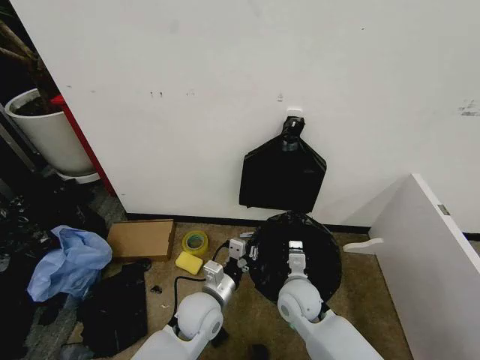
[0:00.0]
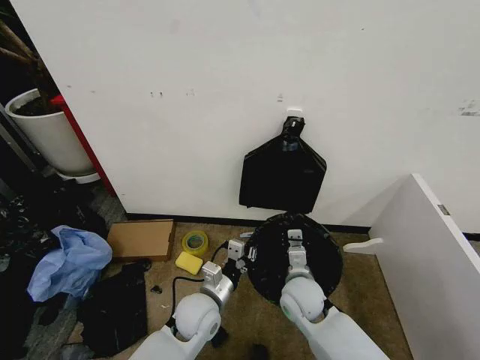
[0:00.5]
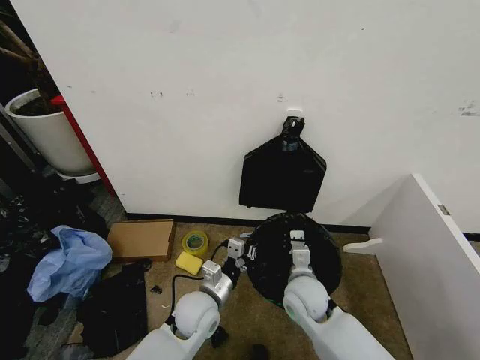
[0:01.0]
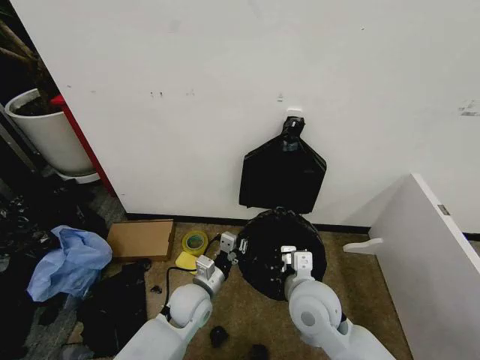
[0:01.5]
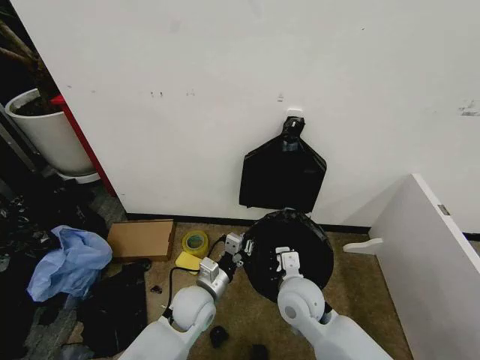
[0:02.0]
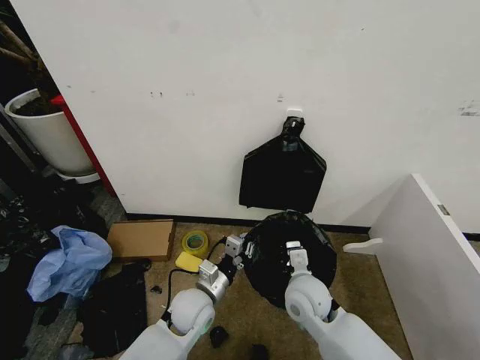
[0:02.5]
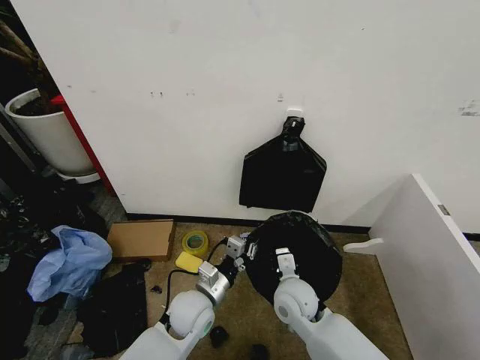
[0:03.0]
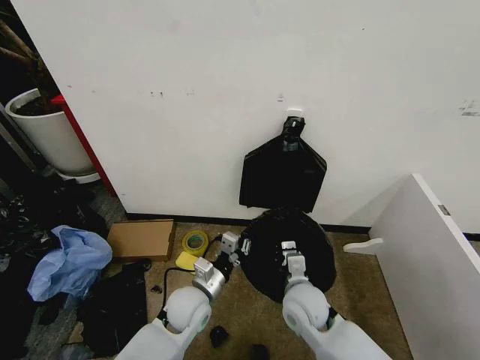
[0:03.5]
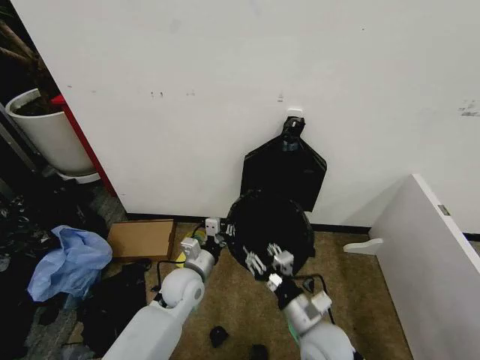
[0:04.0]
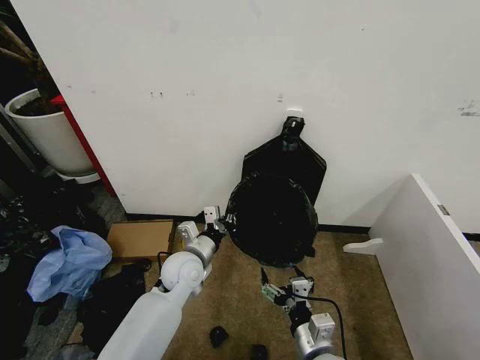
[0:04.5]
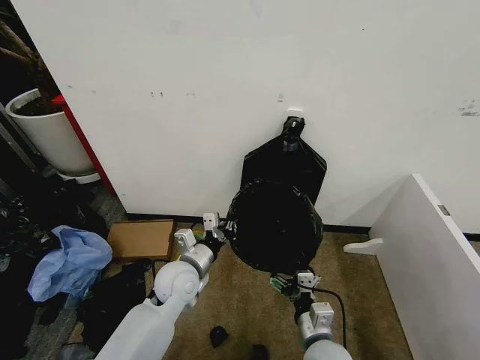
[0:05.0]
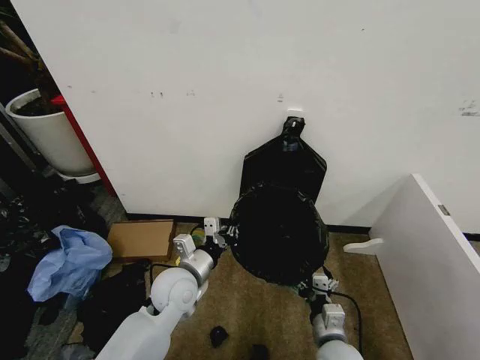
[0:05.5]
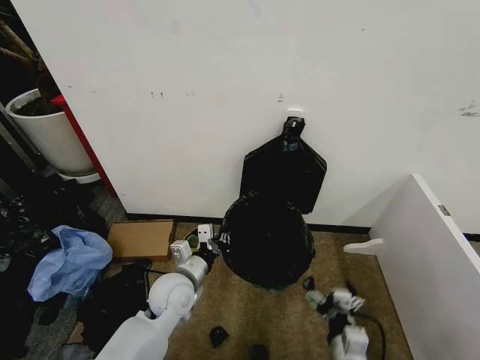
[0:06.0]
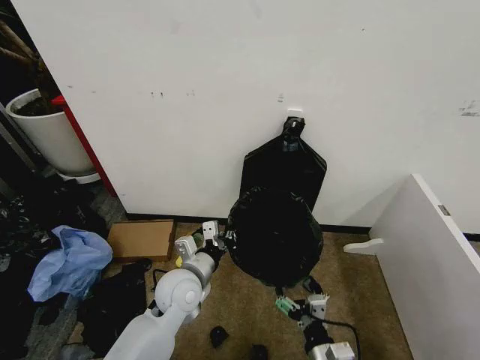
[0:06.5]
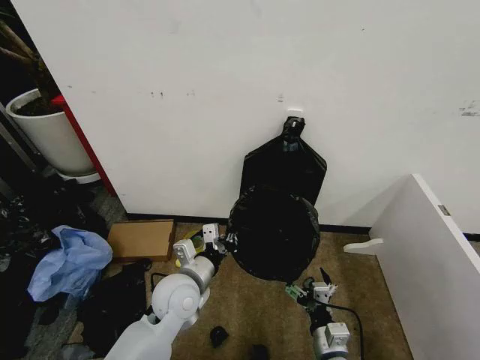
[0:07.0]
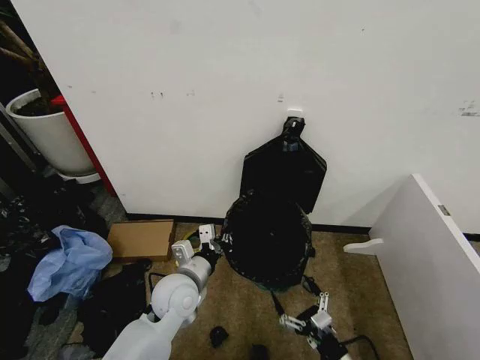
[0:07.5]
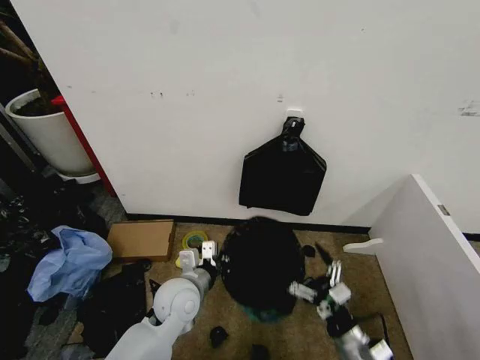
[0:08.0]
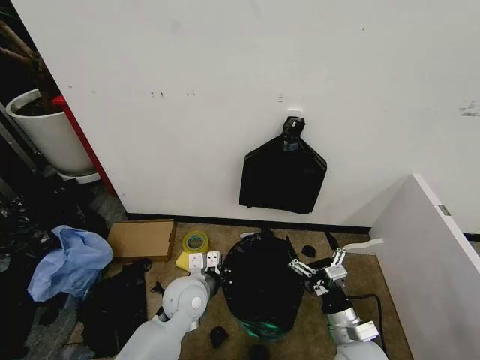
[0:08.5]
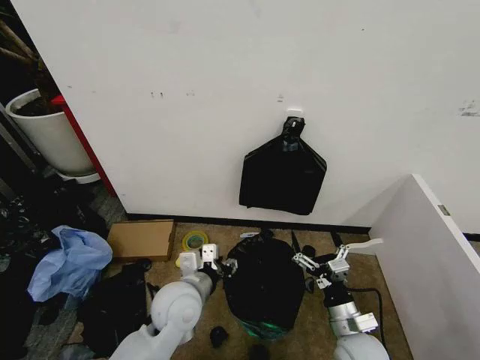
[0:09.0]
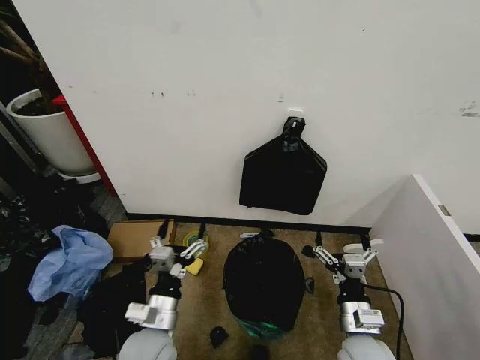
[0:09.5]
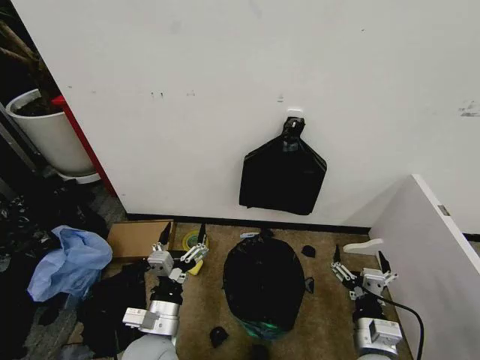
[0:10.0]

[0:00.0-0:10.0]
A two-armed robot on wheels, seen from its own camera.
Task of the whole recording: Place the garbage bag over the trash bin.
0:00.0 to 0:02.0: The right gripper moves upward, approximately 5 cm.
0:02.0 to 0:04.0: The left gripper ends up about 5 cm from where it was. The right gripper moves backward, some 10 cm, and opens up.
0:04.0 to 0:06.0: The left gripper ends up approximately 5 cm from where it was, while the right gripper is displaced backward by roughly 10 cm, and opens.
0:06.0 to 0:08.0: The right gripper travels to the right by about 5 cm.
0:08.0 to 0:10.0: The left gripper shifts roughly 10 cm backward, and opens. Meanwhile the right gripper travels upward by approximately 5 cm.
